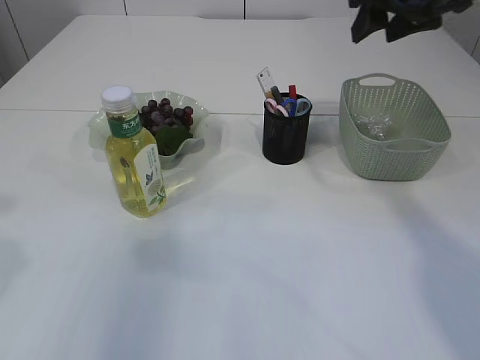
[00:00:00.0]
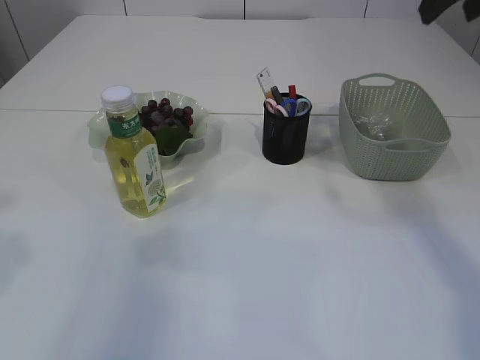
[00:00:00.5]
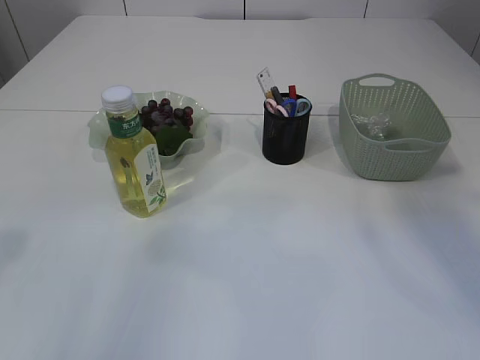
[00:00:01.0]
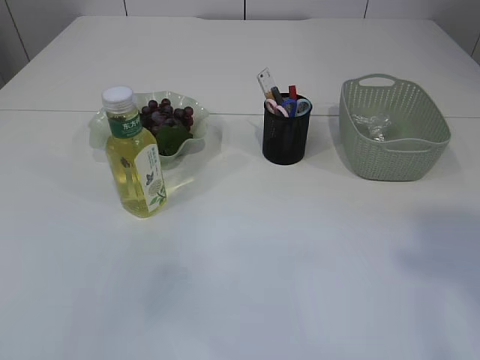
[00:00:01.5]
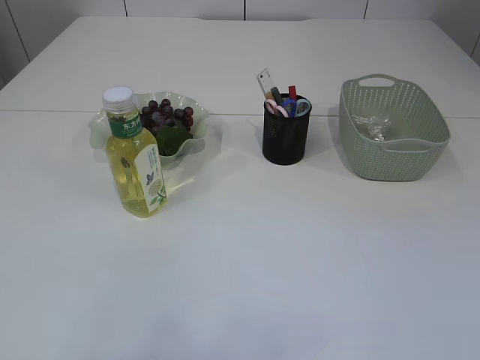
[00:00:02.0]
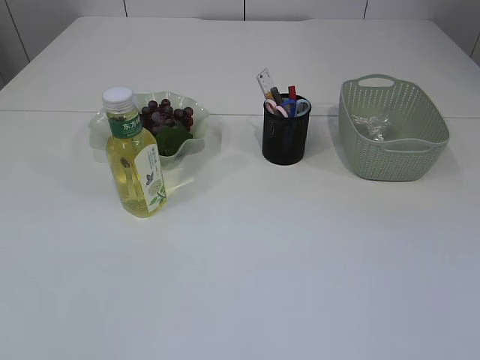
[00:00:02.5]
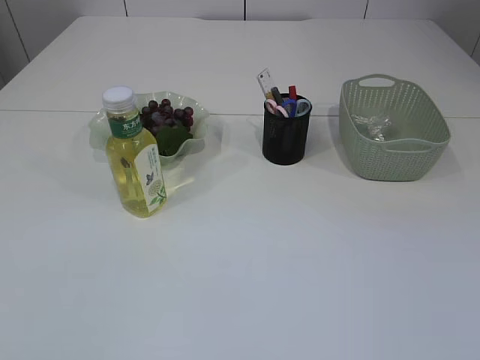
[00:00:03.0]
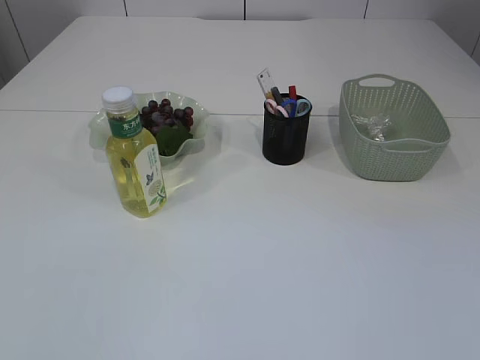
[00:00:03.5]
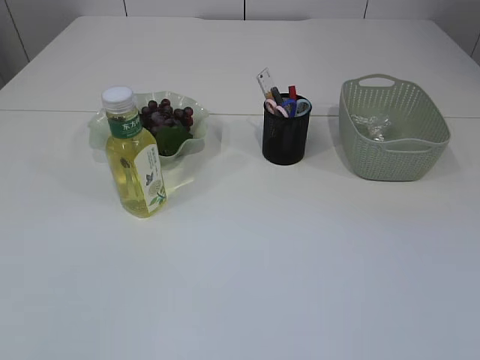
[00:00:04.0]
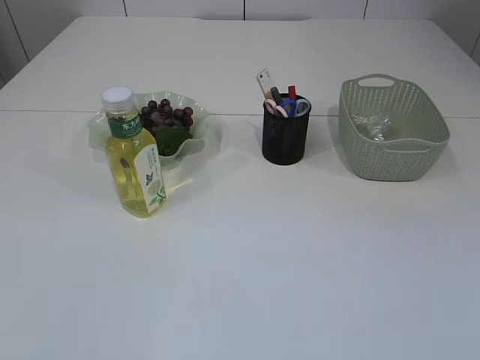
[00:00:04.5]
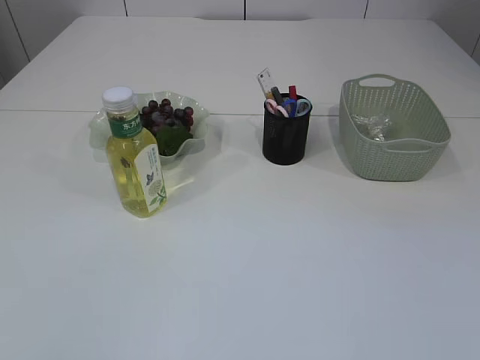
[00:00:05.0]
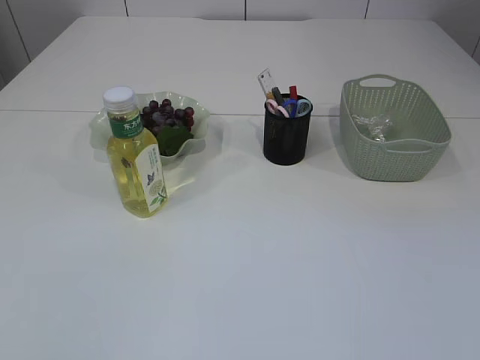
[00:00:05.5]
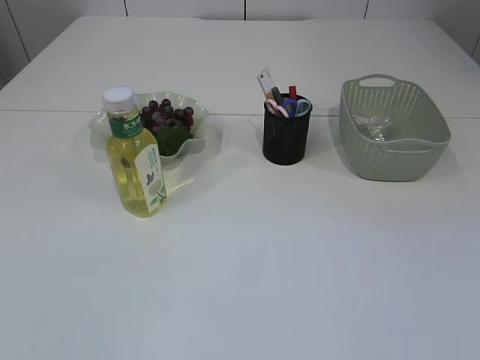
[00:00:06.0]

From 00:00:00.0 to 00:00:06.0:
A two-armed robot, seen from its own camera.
From 00:00:00.0 to 00:00:02.0: The right gripper goes some 40 cm backward.

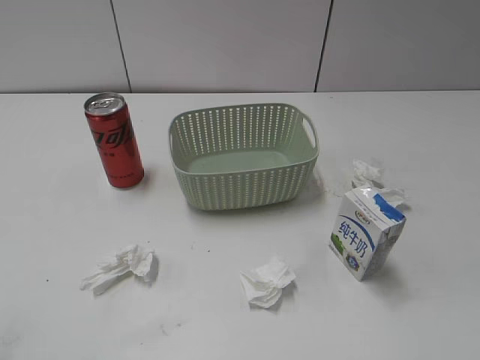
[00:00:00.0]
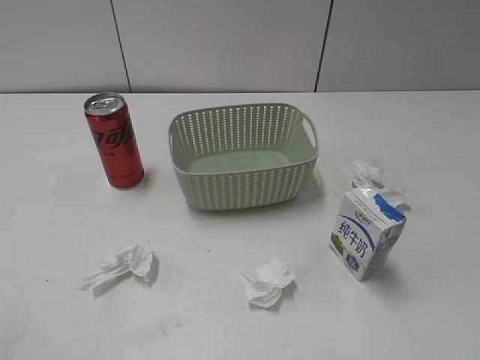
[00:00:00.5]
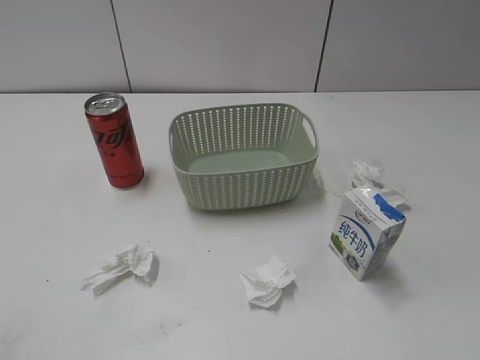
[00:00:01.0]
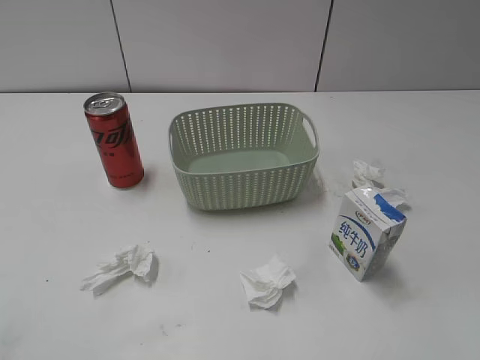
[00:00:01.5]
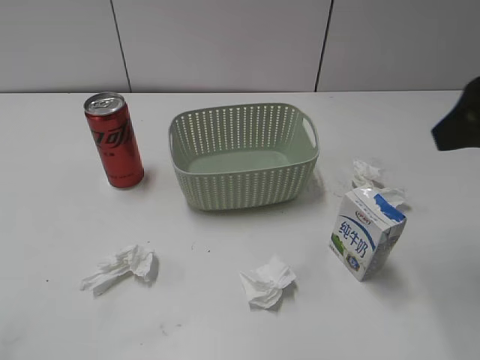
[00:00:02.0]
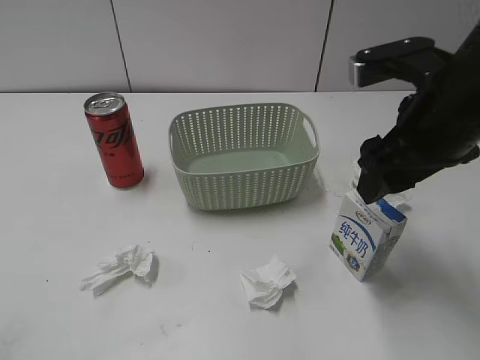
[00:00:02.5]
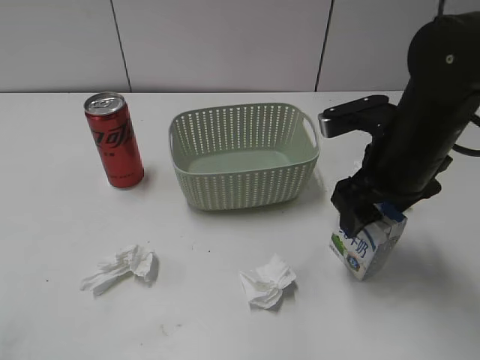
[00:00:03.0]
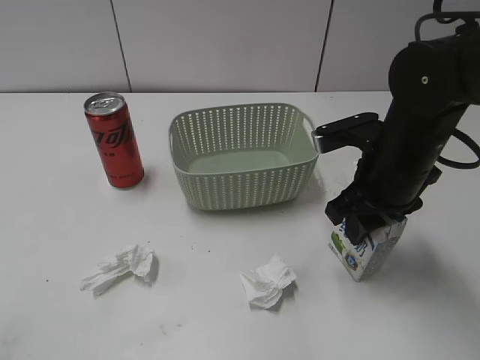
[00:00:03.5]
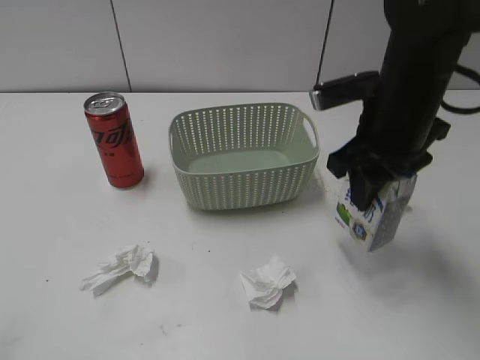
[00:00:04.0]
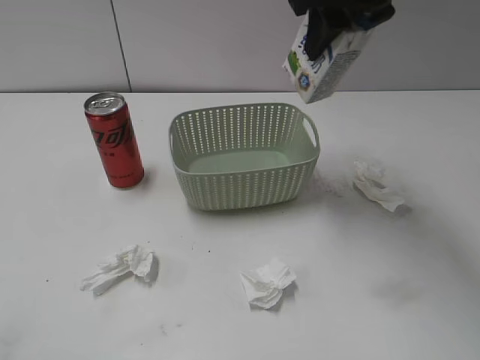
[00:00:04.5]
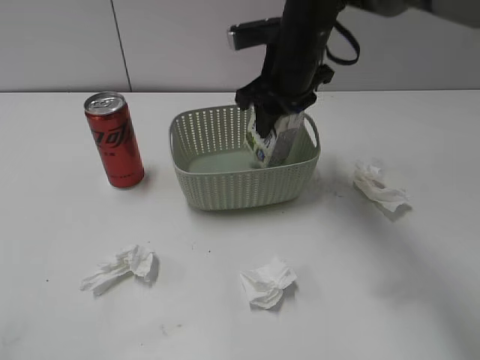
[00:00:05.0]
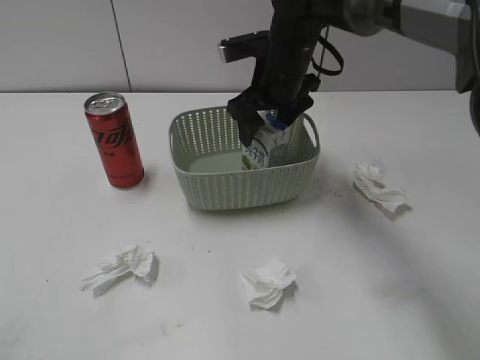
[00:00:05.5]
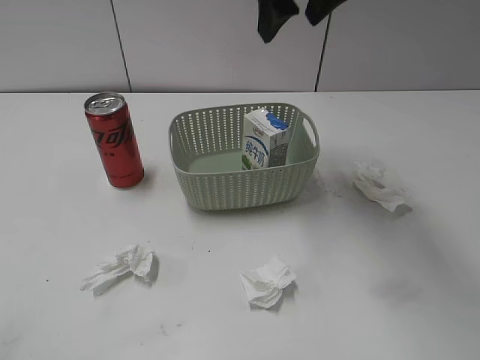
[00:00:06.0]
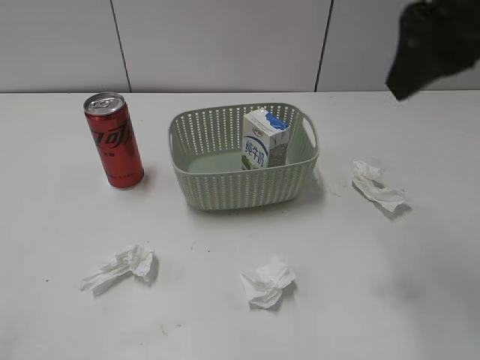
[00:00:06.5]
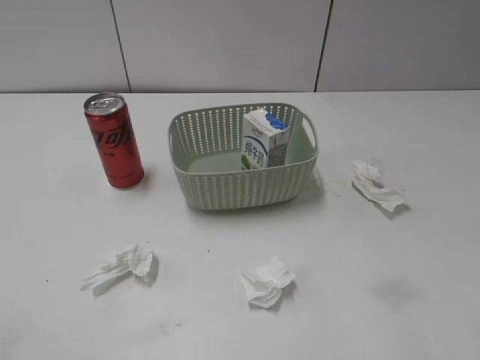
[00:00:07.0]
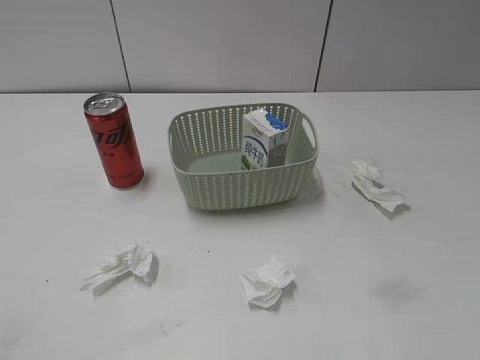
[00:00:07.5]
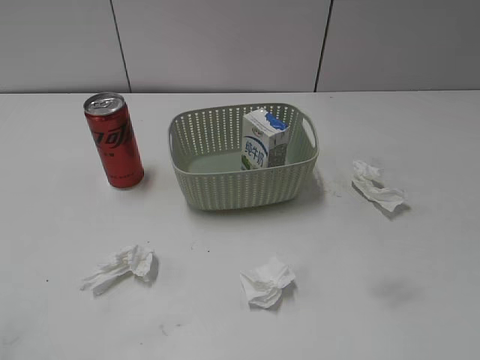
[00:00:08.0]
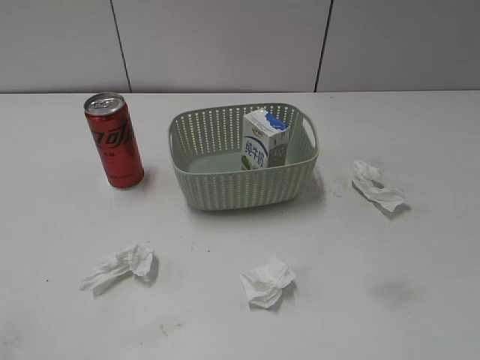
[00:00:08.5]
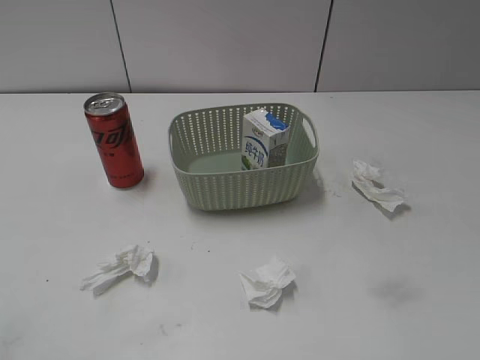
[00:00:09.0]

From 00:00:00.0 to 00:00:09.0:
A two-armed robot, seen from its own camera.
Step, from 00:00:02.0 to 00:00:03.0: Grasp the milk with right gripper.
Step, from 00:00:03.5 to 00:00:05.5: Place the milk in the basket with right gripper.
From 00:00:02.0 to 00:00:04.5: The right gripper heads forward and to the left, covering roughly 20 cm, reaches about 15 cm downward, then returns, and closes.
From 00:00:04.5 to 00:00:07.0: The right gripper shifts about 30 cm backward and to the right, and opens its fingers.

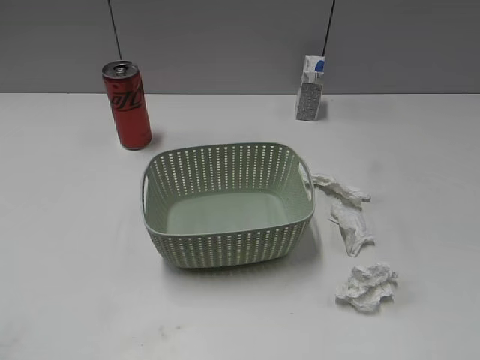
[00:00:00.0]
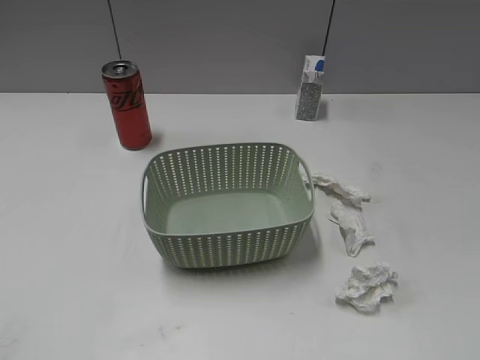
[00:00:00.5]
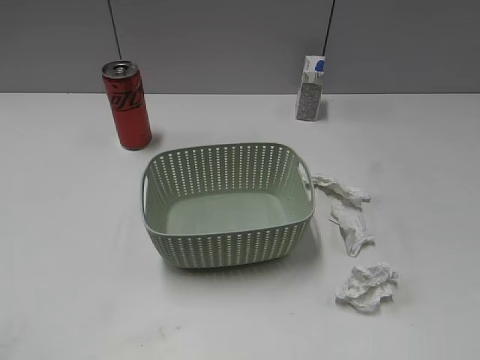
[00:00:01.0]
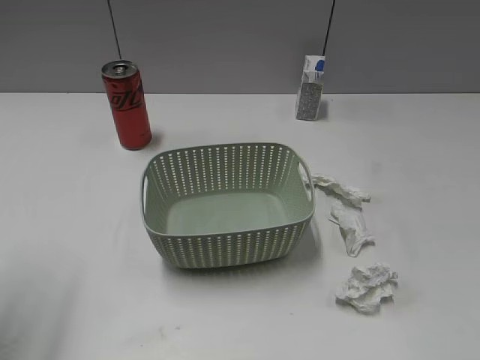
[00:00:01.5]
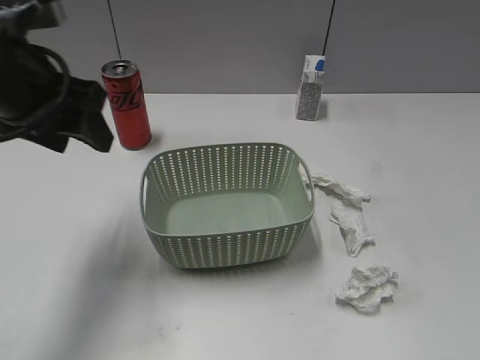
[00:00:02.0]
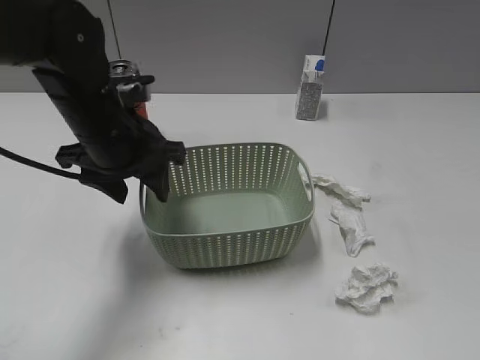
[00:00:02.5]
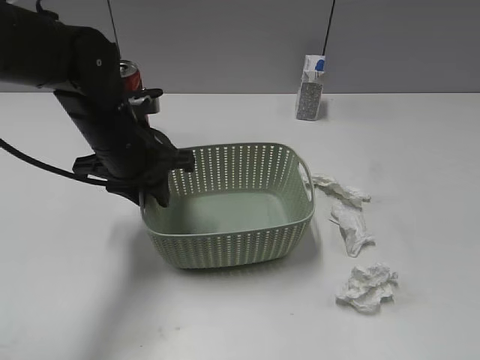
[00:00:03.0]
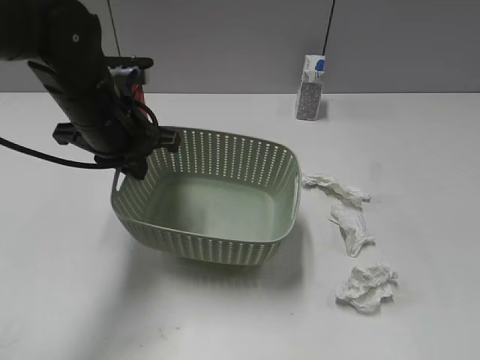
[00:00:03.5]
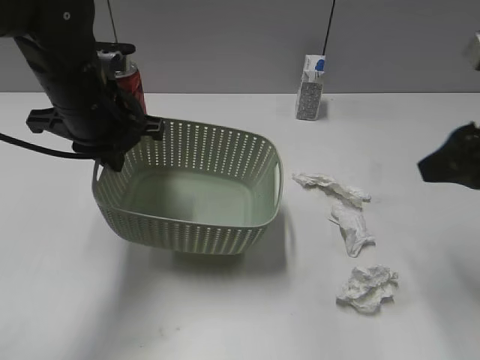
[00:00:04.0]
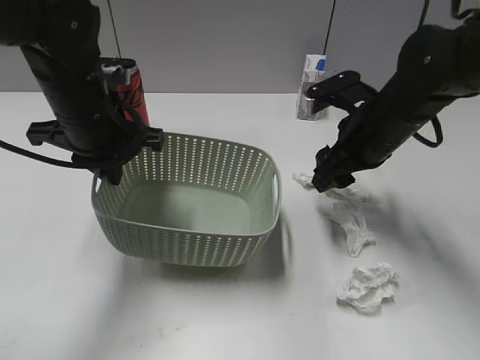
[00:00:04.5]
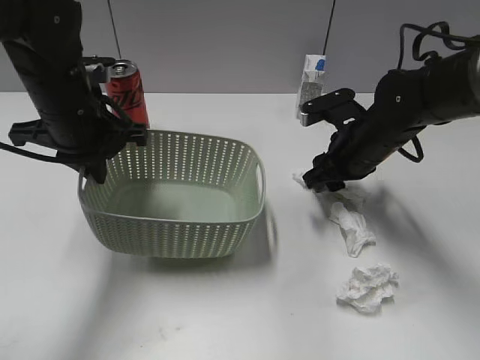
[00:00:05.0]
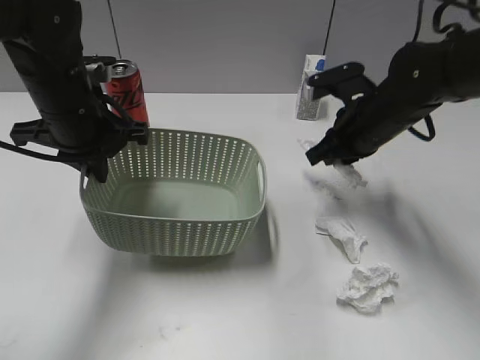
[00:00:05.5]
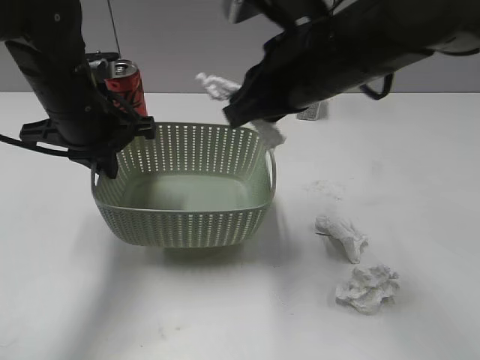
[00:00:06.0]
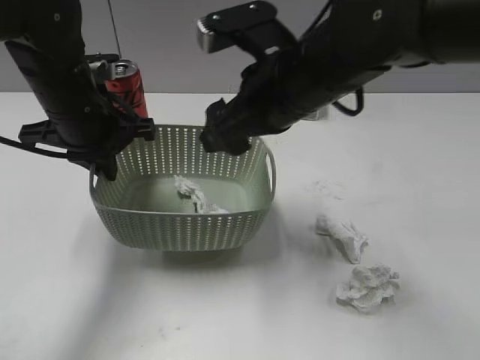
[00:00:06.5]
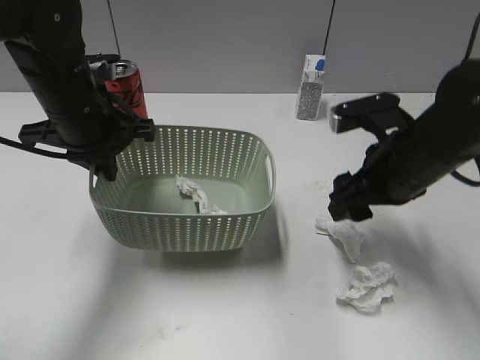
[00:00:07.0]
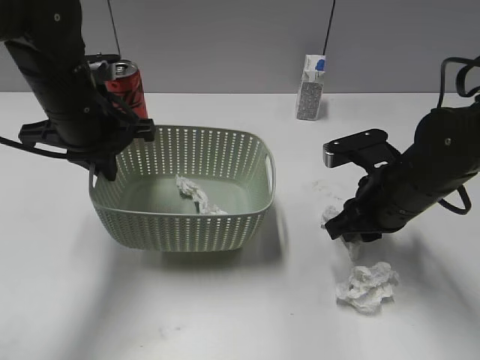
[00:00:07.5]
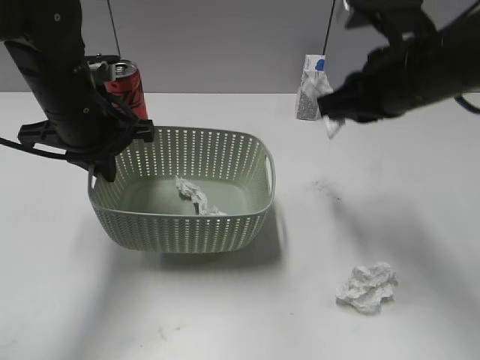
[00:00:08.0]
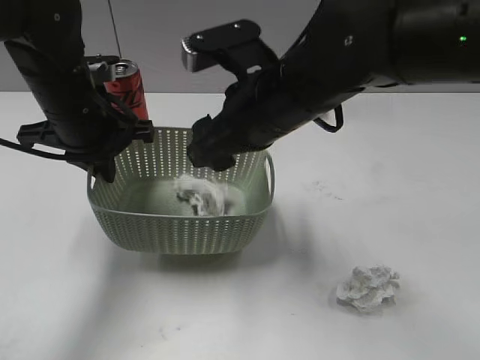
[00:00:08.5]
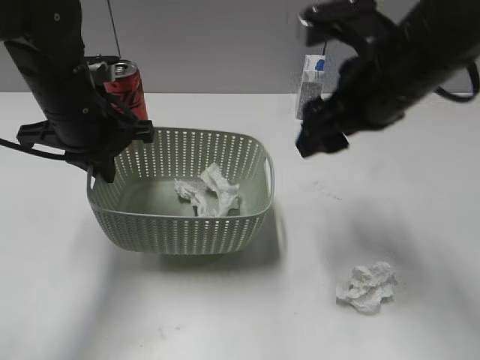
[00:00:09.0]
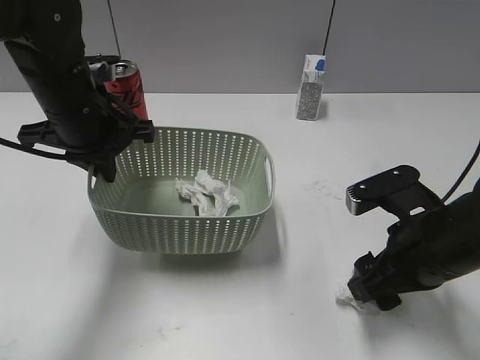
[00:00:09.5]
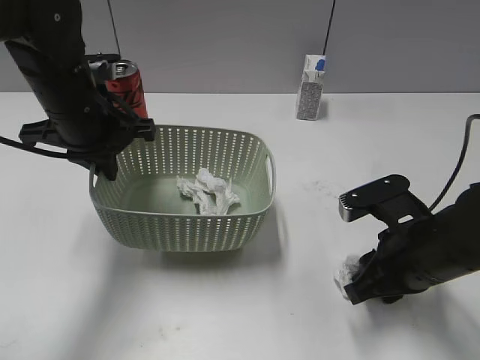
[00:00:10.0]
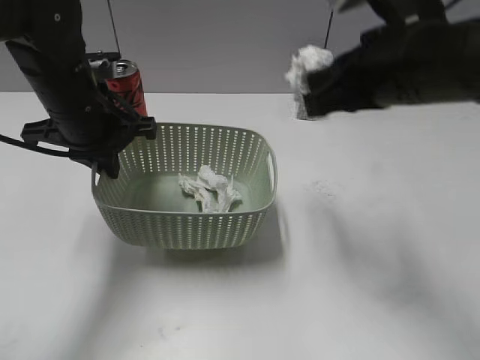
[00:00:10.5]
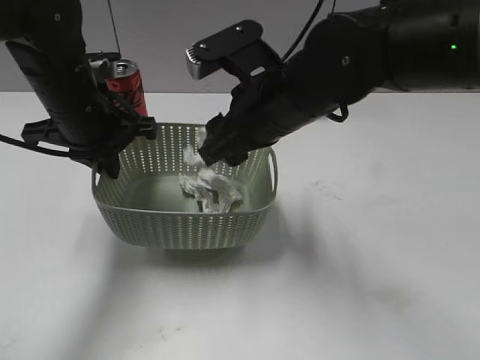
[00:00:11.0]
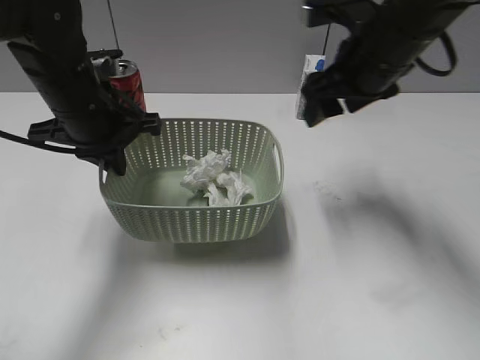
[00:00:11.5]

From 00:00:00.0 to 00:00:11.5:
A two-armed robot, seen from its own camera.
Step, from 00:00:02.0 to 00:00:03.0: Grasp the basket with left gripper.
Step, from 00:00:04.5 to 00:00:05.0: Grasp the waste paper with right gripper.
Step, from 00:00:05.5 to 00:00:06.0: Place the waste paper in the basket with right gripper.
Step, from 00:00:06.5 to 00:00:07.5: Grasp the waste paper with right gripper.
Step, from 00:00:08.0 to 00:00:08.5: Place the waste paper in the basket with right gripper.
Step, from 00:00:09.0 to 00:00:10.0: Grasp the waste paper with right gripper.
Step, from 00:00:10.5 to 00:00:11.0: Place the waste paper in the basket with right gripper.
From 00:00:02.0 to 00:00:04.0: The right gripper travels forward by roughly 20 cm, while the left gripper shifts some 5 cm downward, and closes up.
From 00:00:04.0 to 00:00:06.0: The right gripper heads to the left, covering some 20 cm, and closes up.
From 00:00:06.0 to 00:00:07.5: The right gripper travels downward and to the right by approximately 20 cm, and opens, then closes again.
From 00:00:07.5 to 00:00:09.5: The right gripper goes roughly 10 cm backward, moves roughly 15 cm to the left and comes back, and opens its fingers.
From 00:00:09.5 to 00:00:11.5: The right gripper travels forward and upward by roughly 20 cm, and closes, then opens again.
